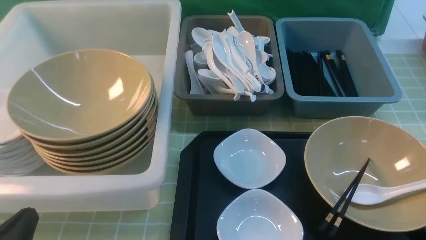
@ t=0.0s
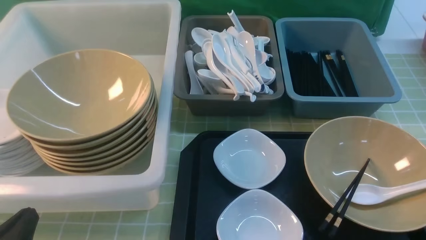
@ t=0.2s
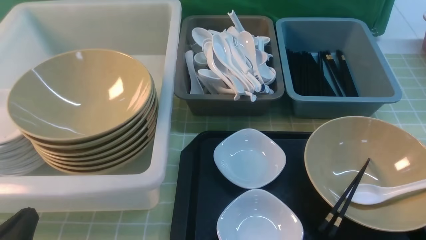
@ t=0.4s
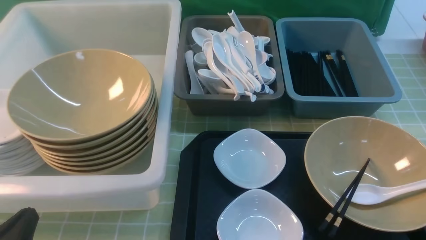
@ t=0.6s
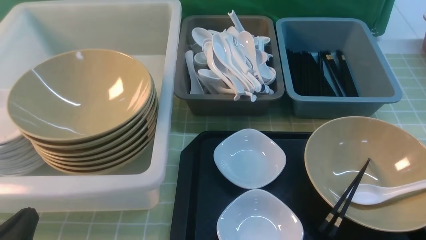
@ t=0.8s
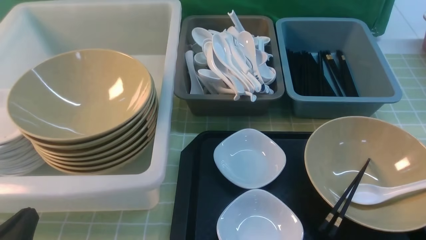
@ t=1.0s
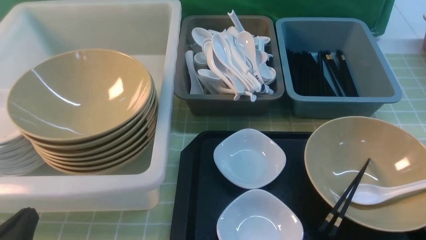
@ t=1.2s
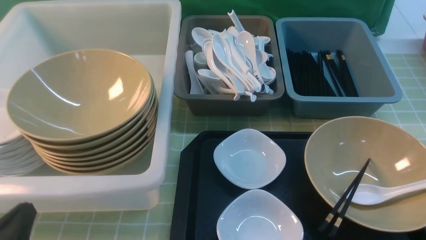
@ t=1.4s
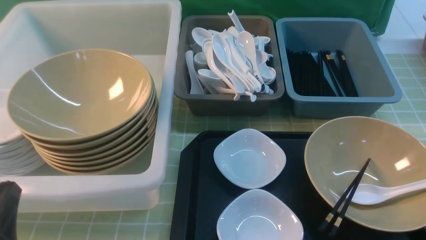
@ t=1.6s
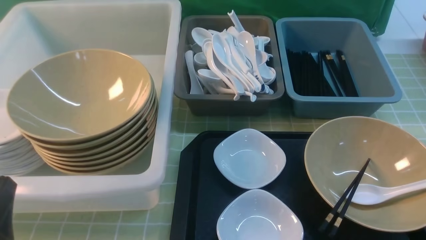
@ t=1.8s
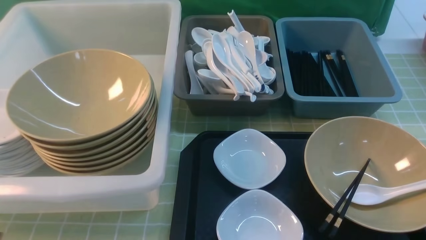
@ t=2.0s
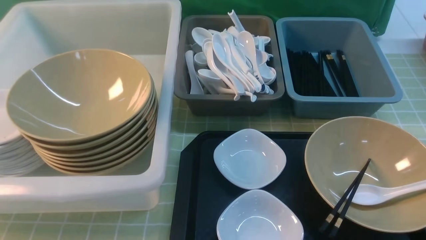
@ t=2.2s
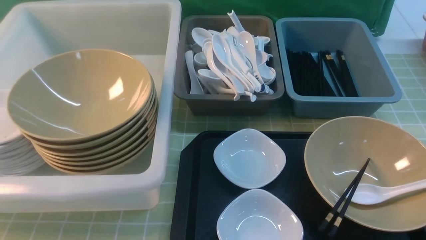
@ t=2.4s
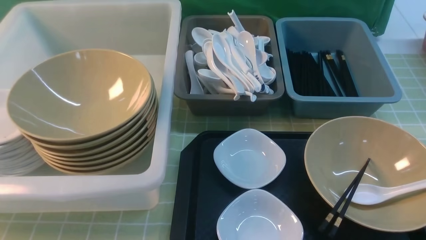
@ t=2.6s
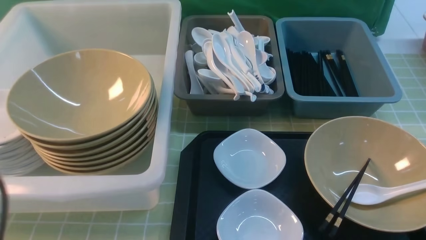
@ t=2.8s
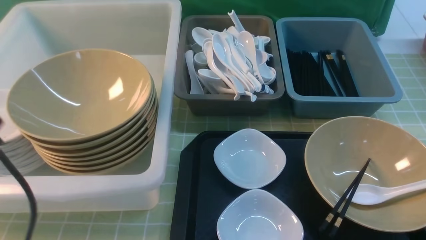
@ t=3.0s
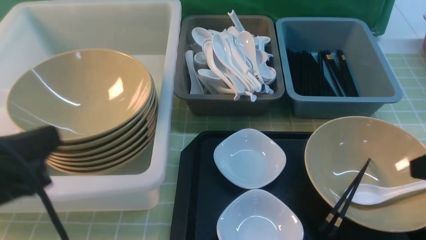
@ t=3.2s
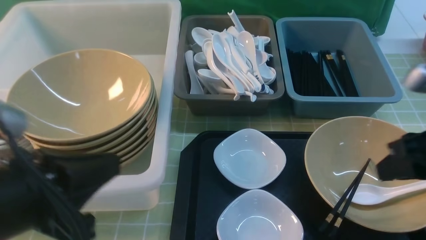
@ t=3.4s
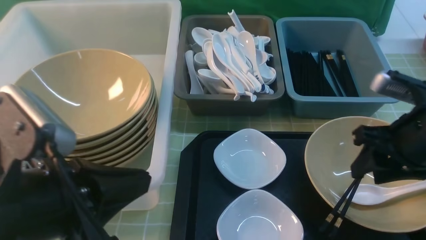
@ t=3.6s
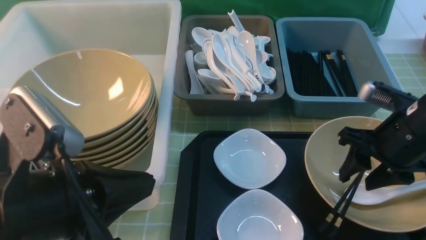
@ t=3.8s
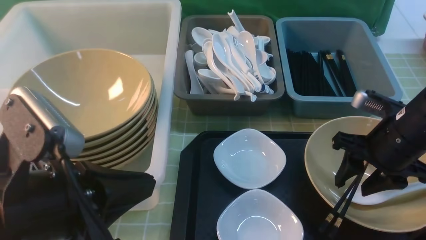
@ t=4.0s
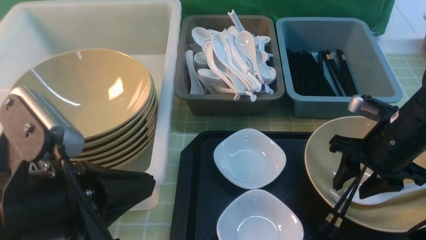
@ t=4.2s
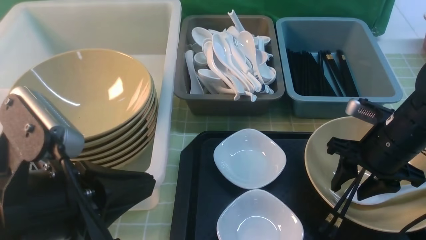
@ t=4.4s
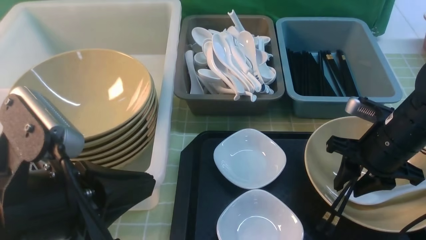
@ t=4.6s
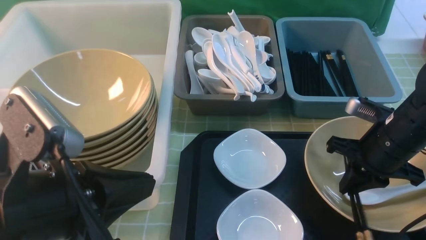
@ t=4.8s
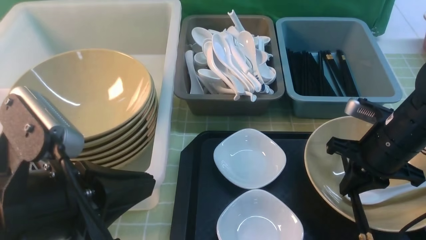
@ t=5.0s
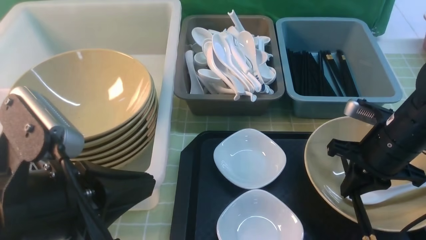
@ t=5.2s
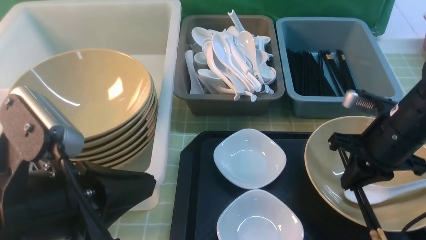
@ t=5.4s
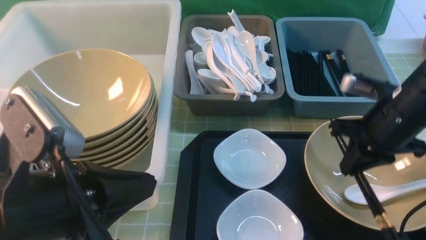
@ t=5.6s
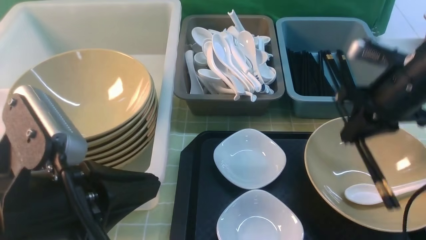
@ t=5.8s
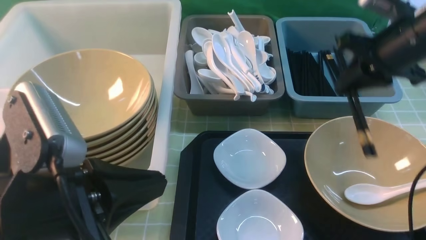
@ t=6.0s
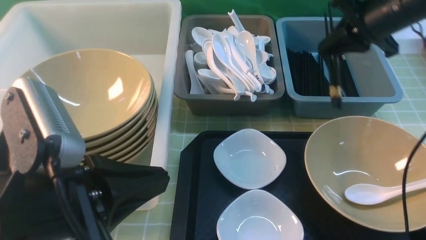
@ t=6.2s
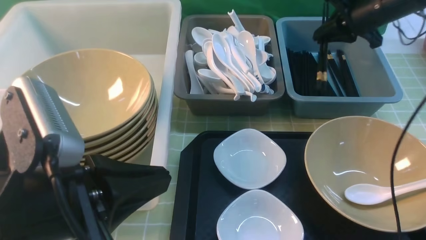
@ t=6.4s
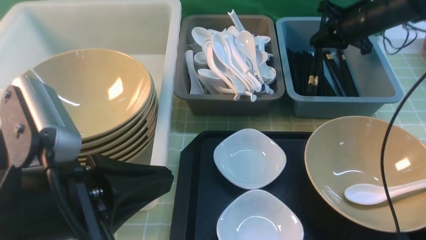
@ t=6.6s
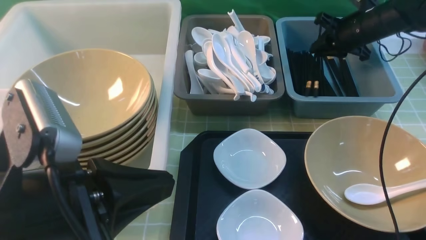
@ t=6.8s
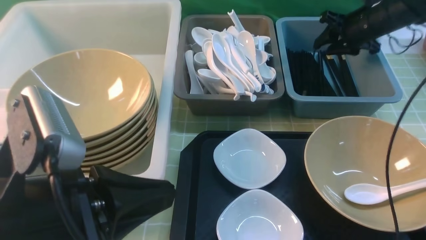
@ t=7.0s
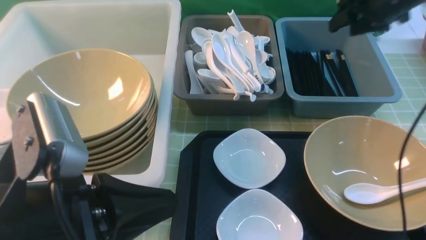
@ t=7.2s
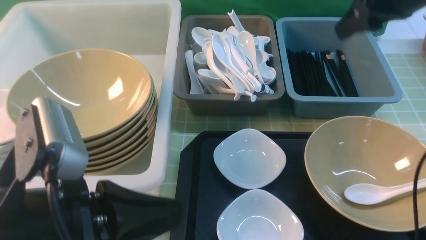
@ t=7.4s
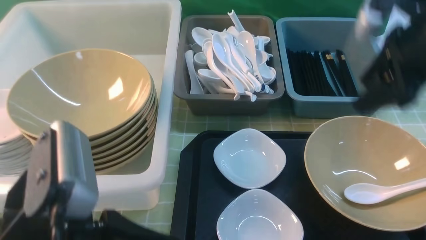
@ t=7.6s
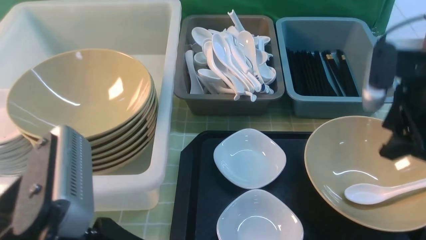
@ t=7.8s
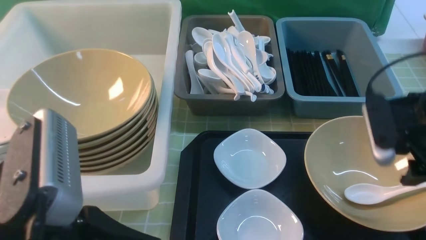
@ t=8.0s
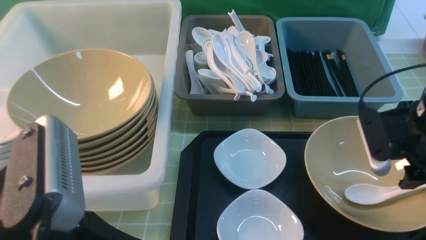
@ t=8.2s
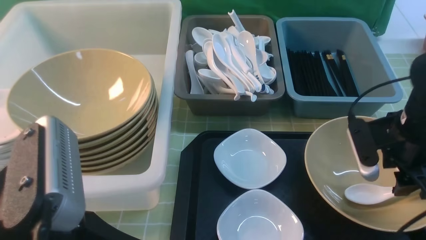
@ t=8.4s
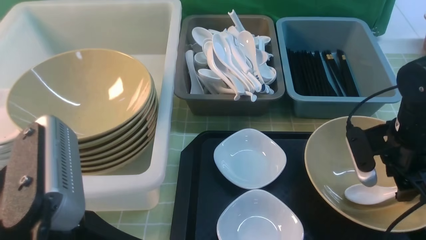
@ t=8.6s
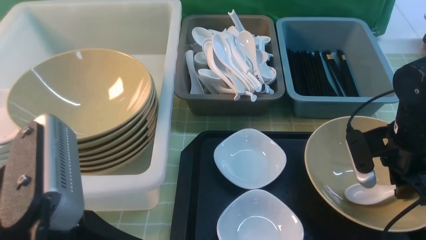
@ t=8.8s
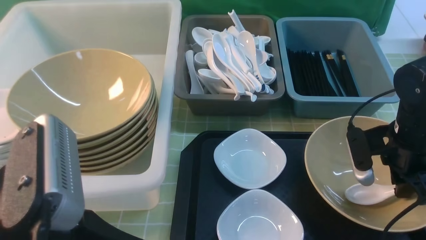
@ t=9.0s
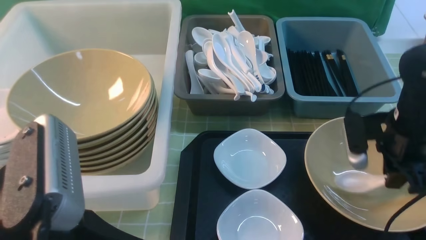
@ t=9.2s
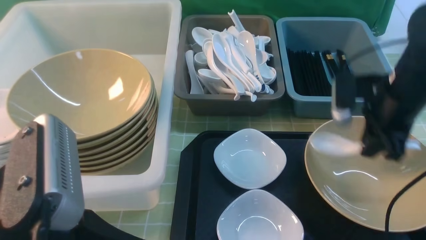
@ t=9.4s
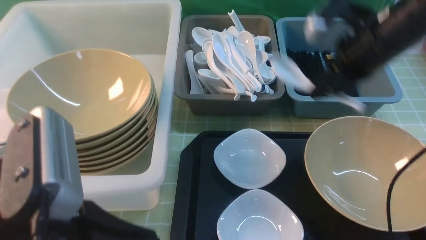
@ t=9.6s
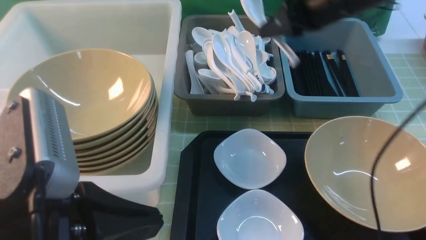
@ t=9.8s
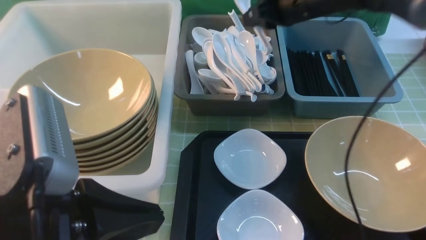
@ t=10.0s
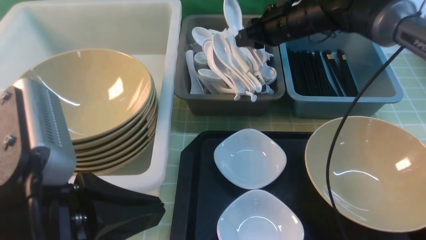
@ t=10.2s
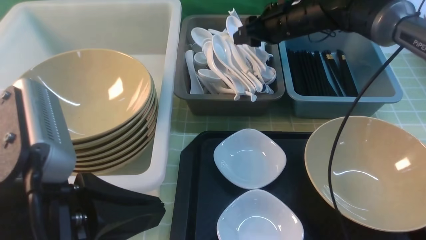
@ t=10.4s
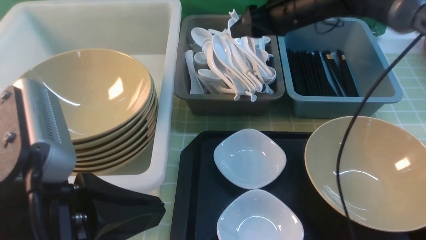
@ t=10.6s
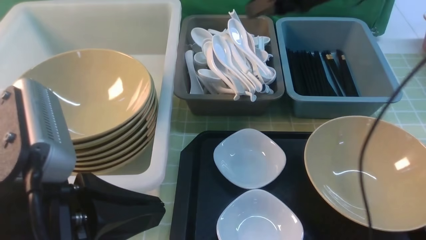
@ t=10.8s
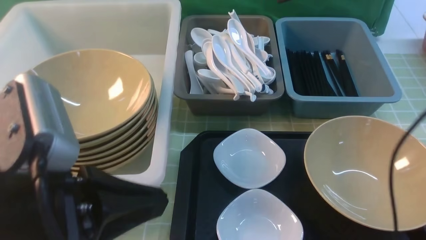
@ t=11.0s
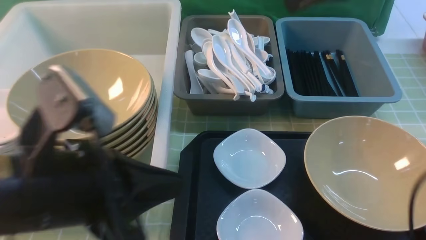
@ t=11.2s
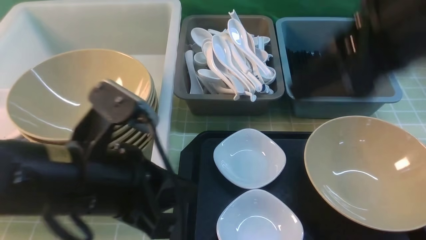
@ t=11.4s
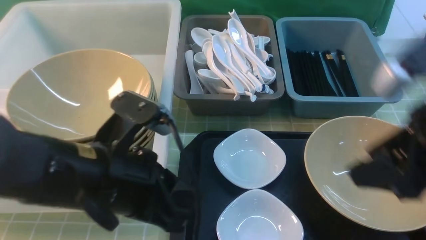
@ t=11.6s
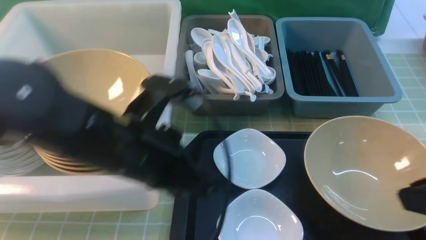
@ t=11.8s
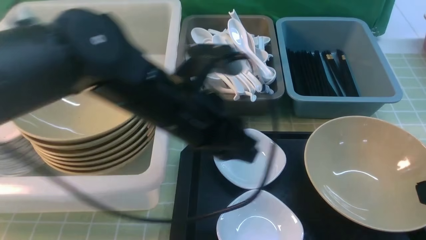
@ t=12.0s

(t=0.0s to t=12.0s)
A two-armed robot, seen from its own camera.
Task of the whole recording: on green table put chopsticks spoon bowls plates into blue grey white boxes.
Step, t=0.0s - t=5.4s: use the right arm to grab the chopsticks.
Step, t=5.6s - t=7.2s: use the right arm to put the chopsticks into the small storage box on the right.
Step, t=7.4s - t=9.4s: use the right arm to grab the soup spoon in the middle.
Step, t=9.6s - t=10.4s: use the right arm to put the soup spoon into the small storage box in the middle.
t=0.0s - t=1.6s: There are only small adjustments of the grippers.
t=1.6s - t=3.0s: The left gripper moves upward, some 15 cm.
t=3.0s - t=4.4s: The left gripper moves to the right, about 10 cm, while the right gripper is displaced forward, downward and to the left by some 20 cm.
t=4.4s - t=6.0s: The right gripper heads upward and forward, covering about 15 cm, and closes.
t=6.0s - t=7.6s: The right gripper reaches some 15 cm forward, then returns, and opens.
t=7.6s - t=9.0s: The right gripper shifts about 15 cm downward, and closes.
t=9.0s - t=10.4s: The right gripper moves forward, to the left and upward, some 25 cm, and opens.
t=10.4s - t=12.0s: The right gripper travels backward by some 35 cm, and closes its fingers. Meanwhile the left gripper is displaced forward and to the right by roughly 20 cm.

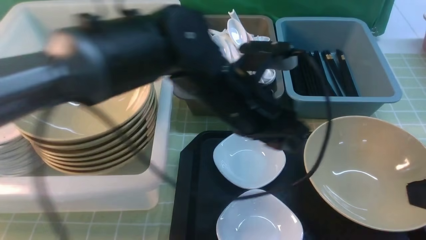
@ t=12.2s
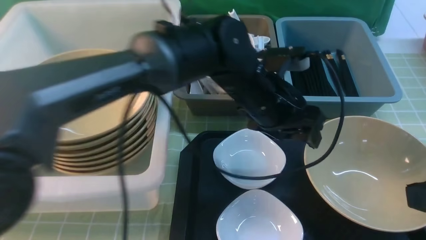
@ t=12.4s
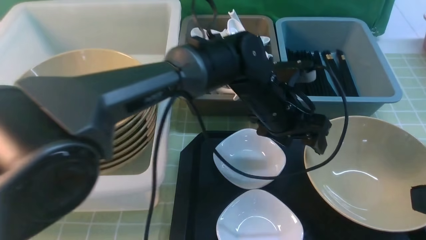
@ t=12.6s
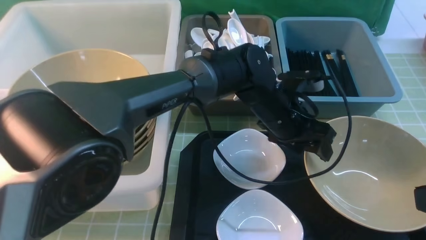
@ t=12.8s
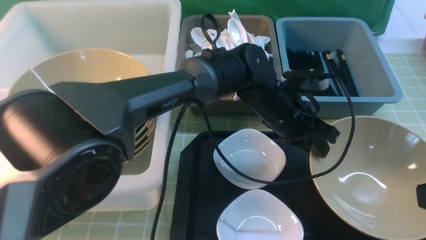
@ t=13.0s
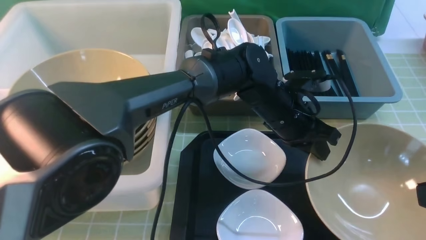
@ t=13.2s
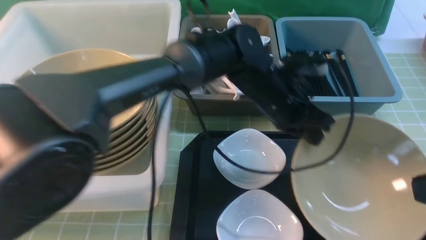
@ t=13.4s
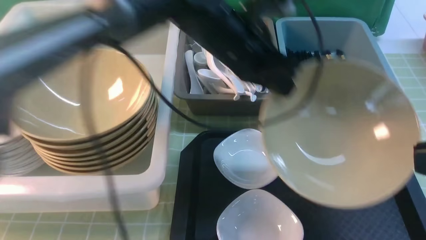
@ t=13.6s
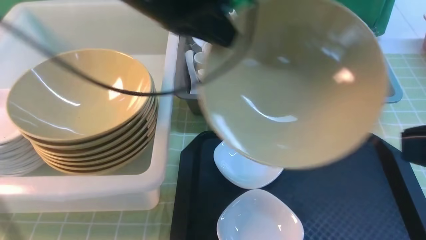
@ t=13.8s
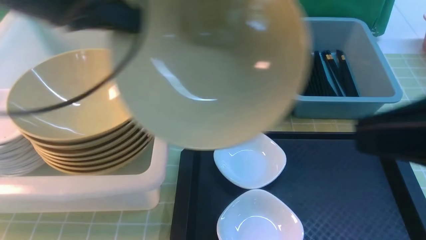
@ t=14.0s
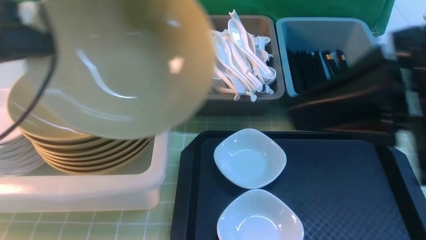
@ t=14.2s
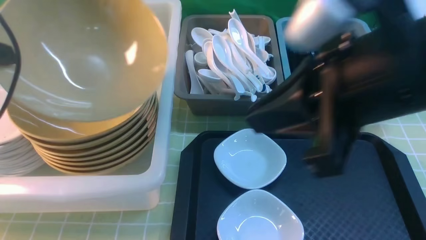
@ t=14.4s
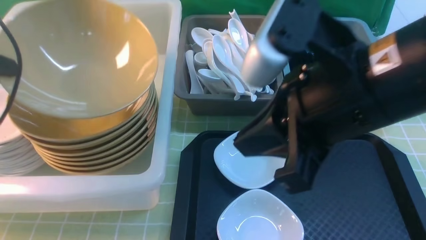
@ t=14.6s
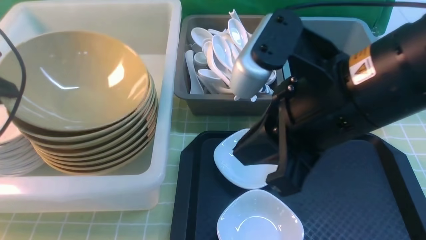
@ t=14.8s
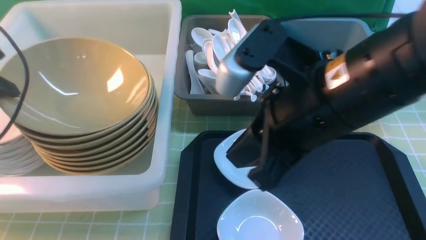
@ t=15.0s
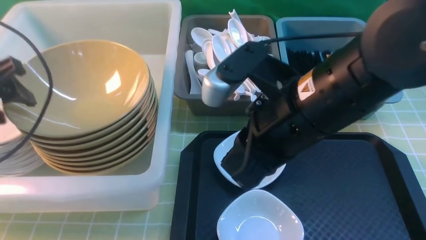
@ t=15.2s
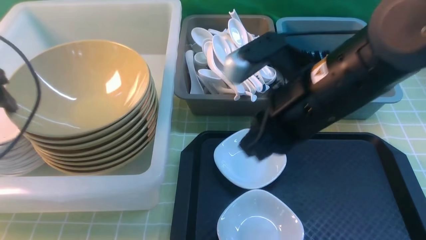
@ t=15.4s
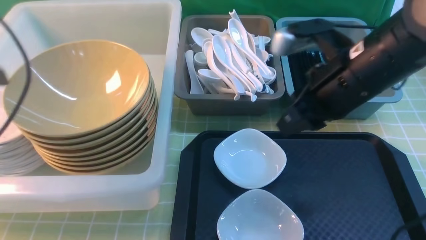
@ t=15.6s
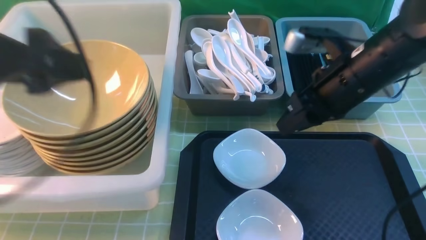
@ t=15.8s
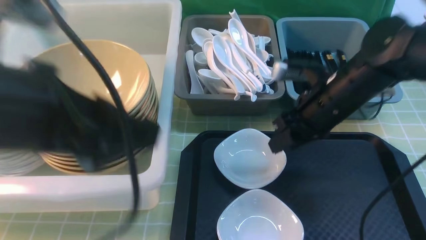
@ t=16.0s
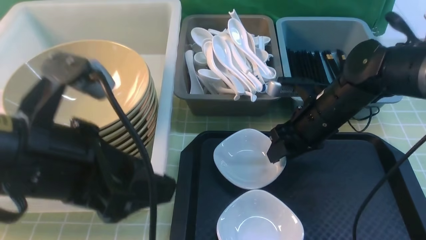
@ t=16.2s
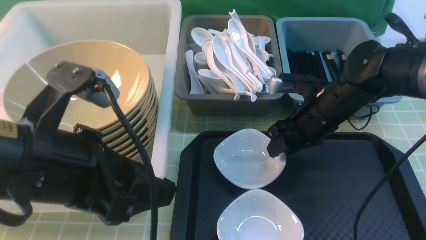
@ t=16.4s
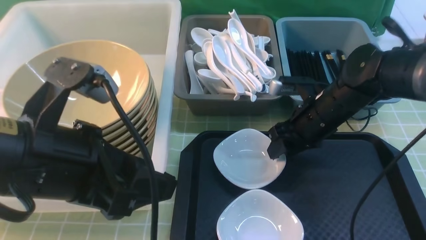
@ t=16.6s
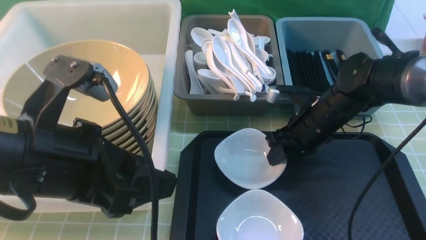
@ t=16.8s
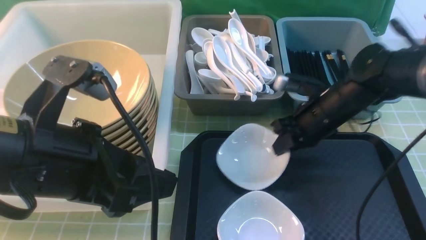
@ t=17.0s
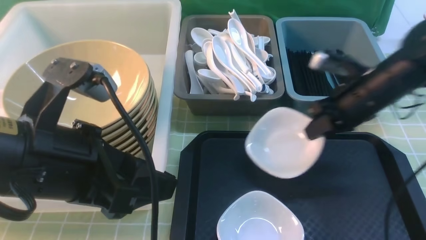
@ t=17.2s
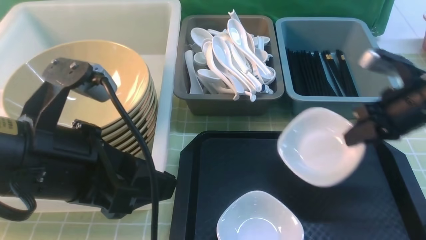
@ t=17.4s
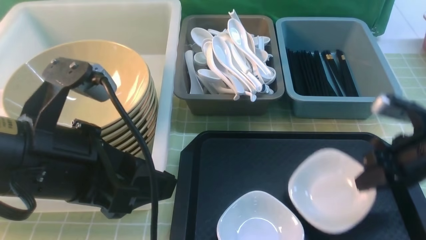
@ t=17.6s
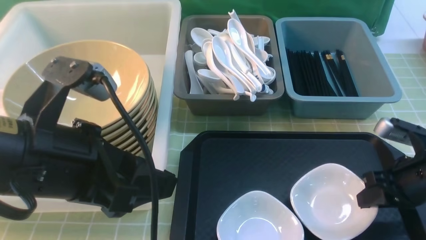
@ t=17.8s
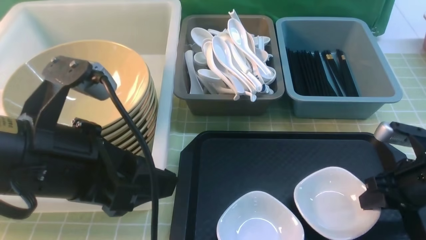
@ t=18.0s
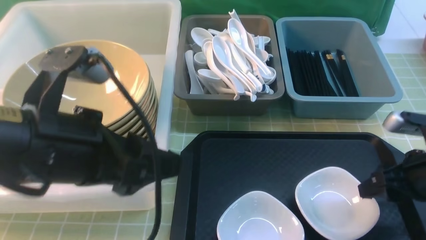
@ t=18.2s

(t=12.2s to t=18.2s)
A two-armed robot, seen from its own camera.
Task of the whole recording: on green table put chopsticks spoon bowls plates into blue grey white boxes.
Step, t=13.8s - t=15.6s: use the left arm to put the noodle bowl into the large storage box on the left.
Step, t=15.8s - t=17.2s: use the right arm to grab the plate.
t=12.2s - t=13.8s: The left gripper shifts some 20 cm to the left and upward, and closes up; the right gripper heads upward, covering roughly 5 cm.
t=13.8s - t=15.2s: The right gripper is displaced to the left, forward and downward by roughly 20 cm. Meanwhile the left gripper goes about 20 cm to the left, and opens.
t=15.2s - t=16.6s: The left gripper is displaced to the right and backward by approximately 20 cm; the right gripper travels downward, forward and to the right by roughly 25 cm, and opens its fingers.
t=16.6s - t=18.2s: The right gripper is displaced backward and to the right by approximately 20 cm, and closes, then reopens.
